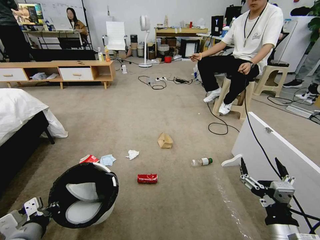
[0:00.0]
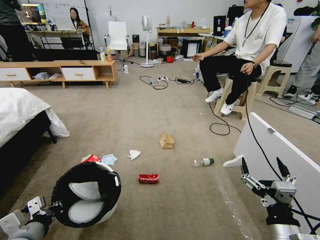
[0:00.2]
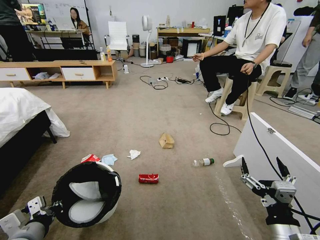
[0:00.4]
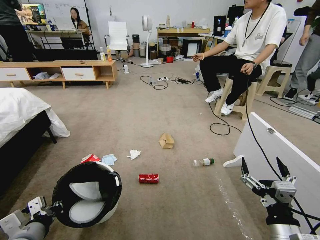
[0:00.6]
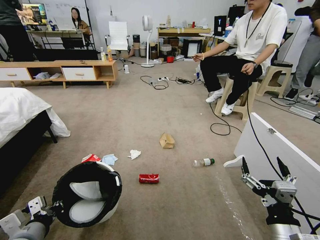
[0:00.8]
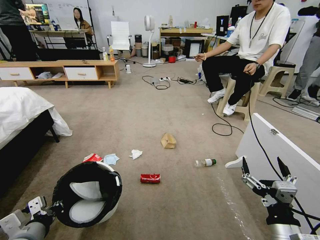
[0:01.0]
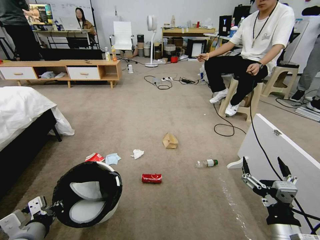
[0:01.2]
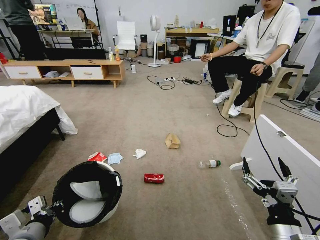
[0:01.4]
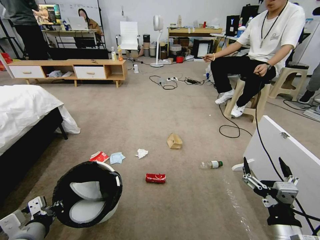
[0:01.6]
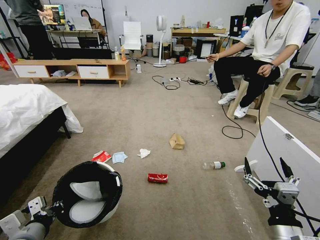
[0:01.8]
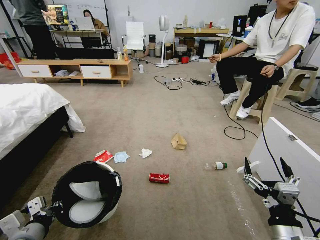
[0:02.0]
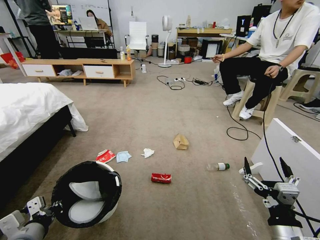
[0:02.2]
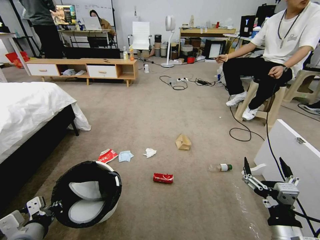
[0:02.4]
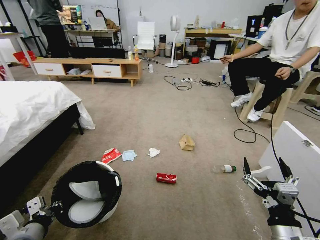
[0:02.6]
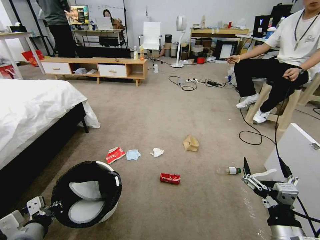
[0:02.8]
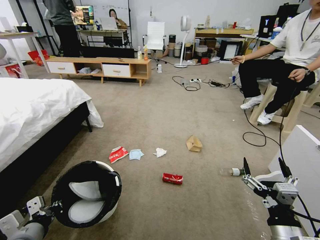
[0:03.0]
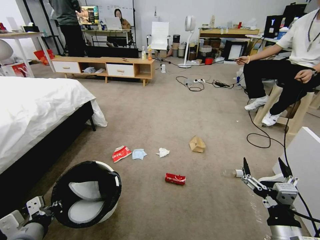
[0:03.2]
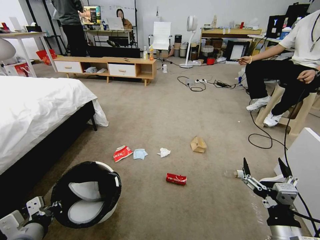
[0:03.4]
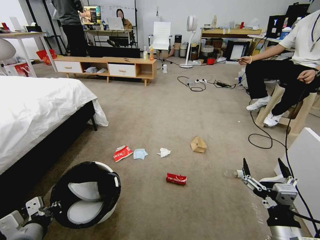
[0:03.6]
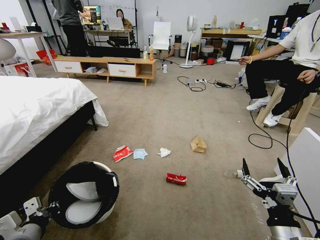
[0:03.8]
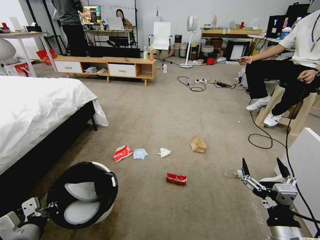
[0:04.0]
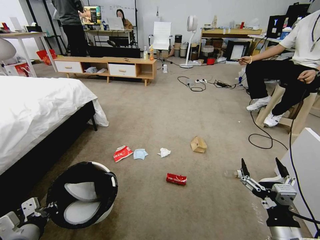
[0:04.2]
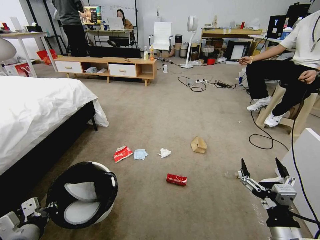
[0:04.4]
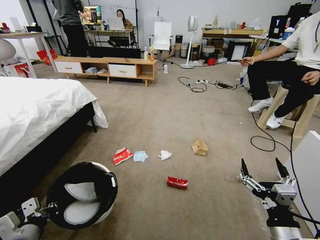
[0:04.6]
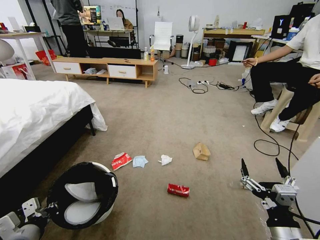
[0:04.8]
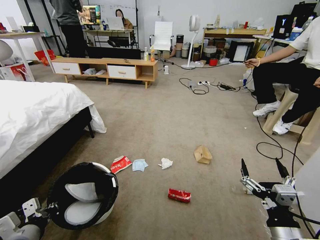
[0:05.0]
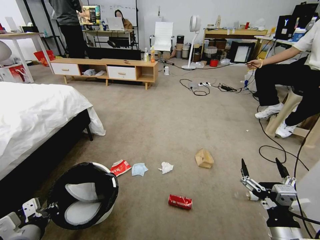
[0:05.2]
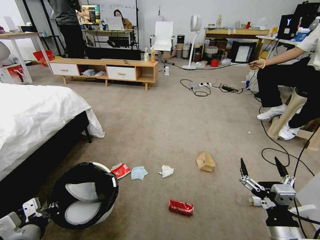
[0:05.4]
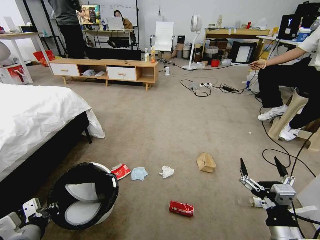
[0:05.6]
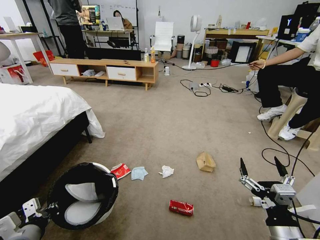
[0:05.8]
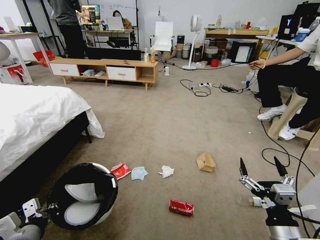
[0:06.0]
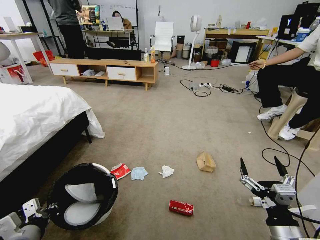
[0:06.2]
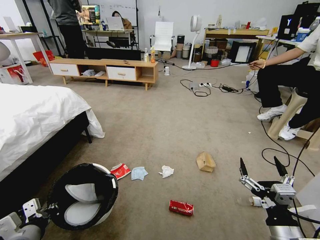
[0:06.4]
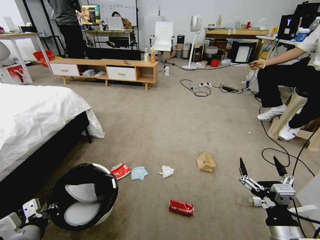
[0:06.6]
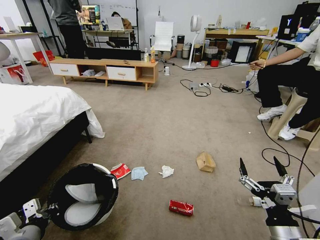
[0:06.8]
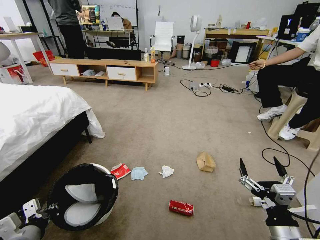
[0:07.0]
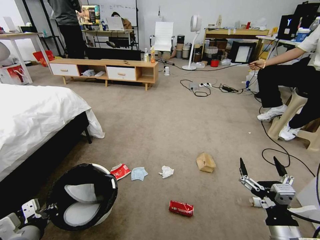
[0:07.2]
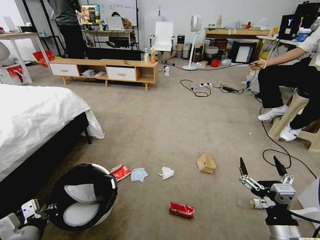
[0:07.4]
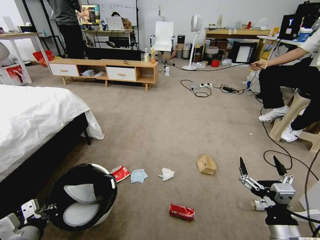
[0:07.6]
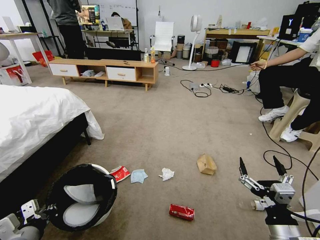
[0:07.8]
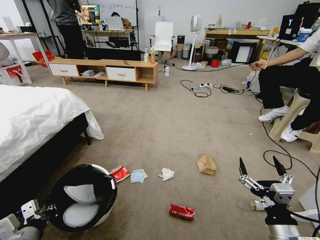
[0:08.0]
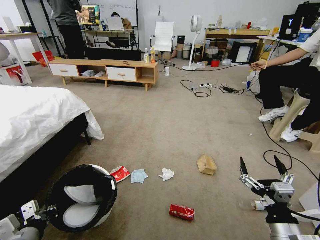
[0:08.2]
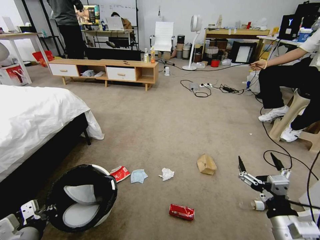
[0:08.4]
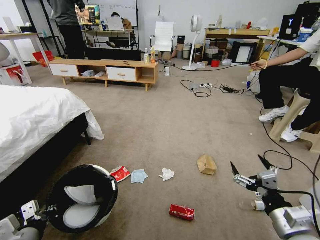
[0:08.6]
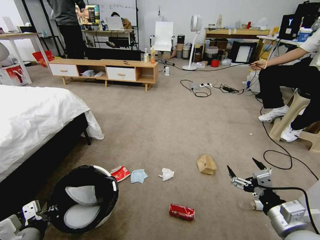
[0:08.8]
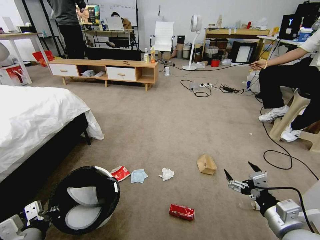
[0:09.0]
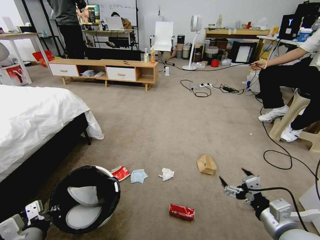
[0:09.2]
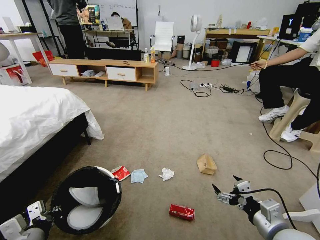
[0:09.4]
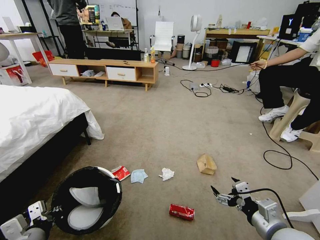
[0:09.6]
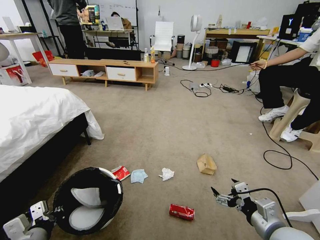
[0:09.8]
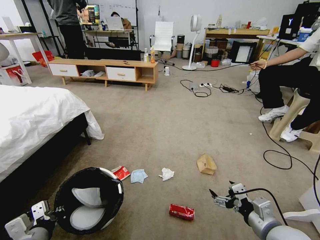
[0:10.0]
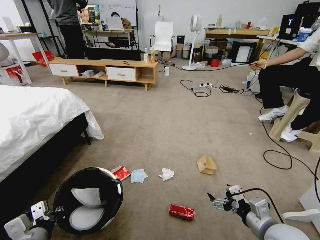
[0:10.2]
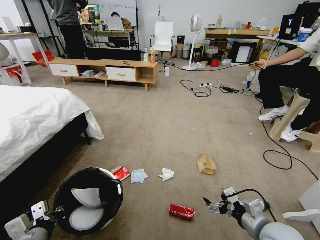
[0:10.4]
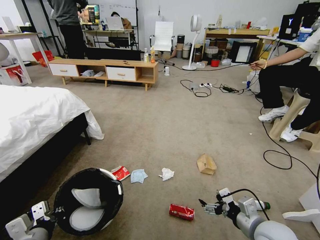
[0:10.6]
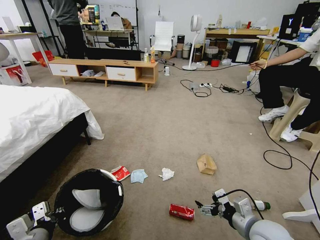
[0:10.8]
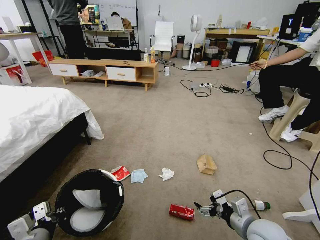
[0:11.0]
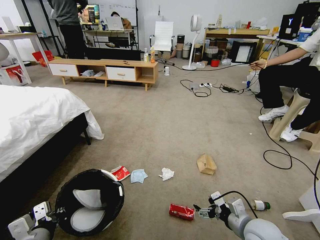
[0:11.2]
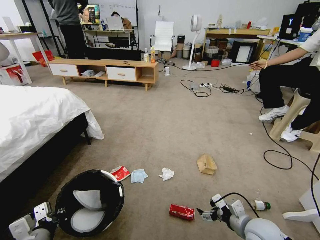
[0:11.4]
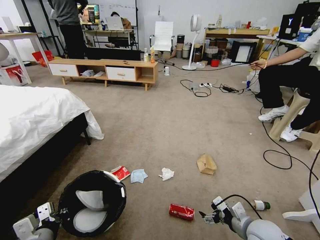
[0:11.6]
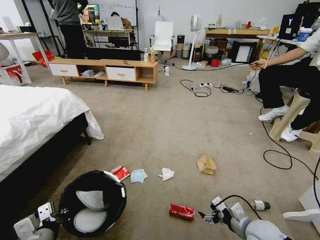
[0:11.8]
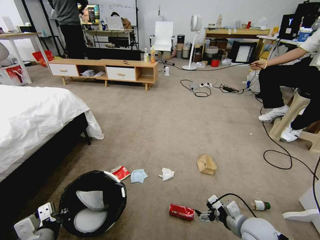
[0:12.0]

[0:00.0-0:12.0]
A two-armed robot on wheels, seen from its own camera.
Task of the whole recording: Pick up the trash bin and place the garbage on the floor into it.
0:06.0 to 0:07.6: Both grippers stay put.
0:07.6 to 0:09.0: The right gripper shifts by some 5 cm.
0:09.0 to 0:10.4: The right gripper ends up some 5 cm from where it was.
0:10.4 to 0:12.0: The right gripper travels downward by some 5 cm.

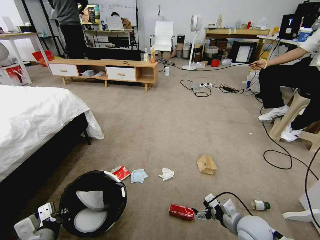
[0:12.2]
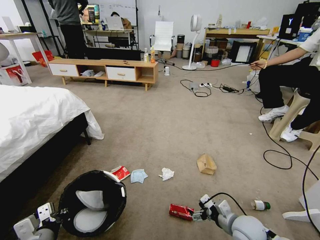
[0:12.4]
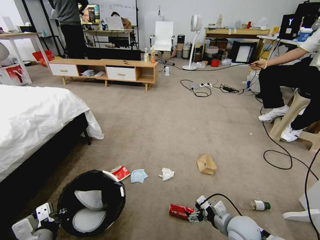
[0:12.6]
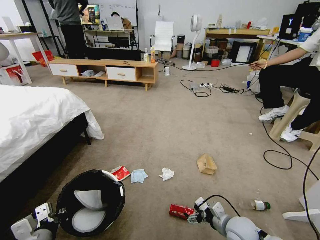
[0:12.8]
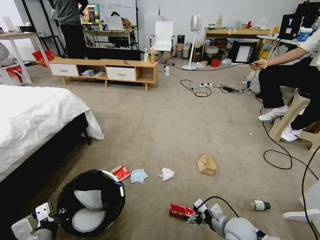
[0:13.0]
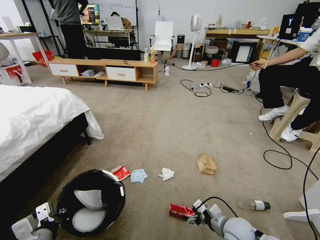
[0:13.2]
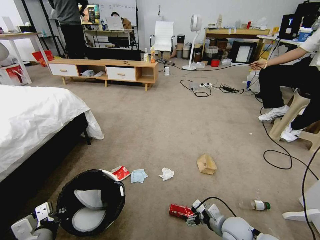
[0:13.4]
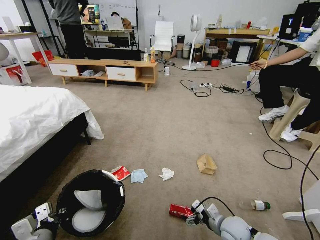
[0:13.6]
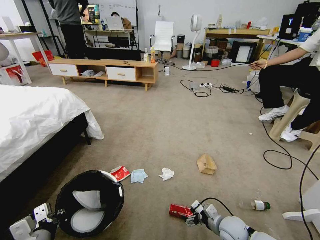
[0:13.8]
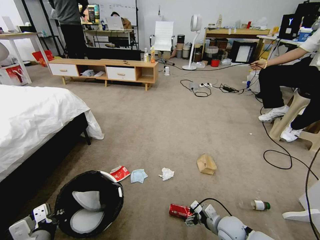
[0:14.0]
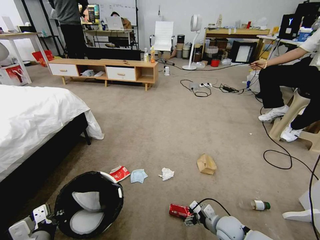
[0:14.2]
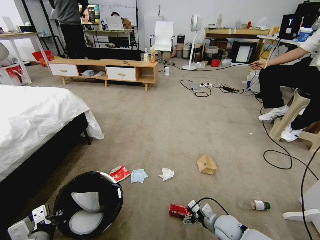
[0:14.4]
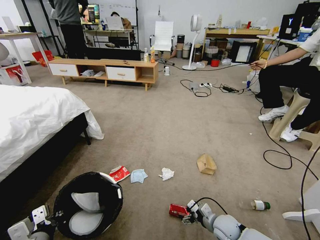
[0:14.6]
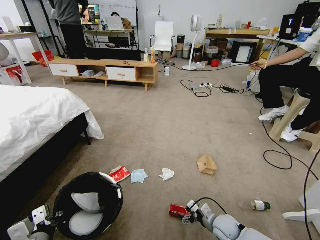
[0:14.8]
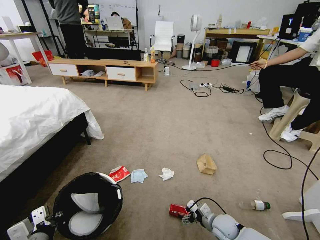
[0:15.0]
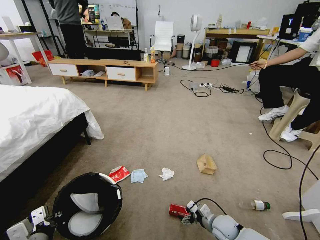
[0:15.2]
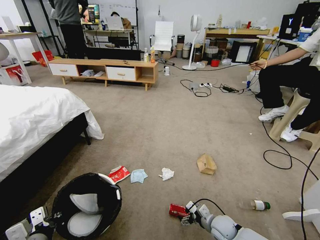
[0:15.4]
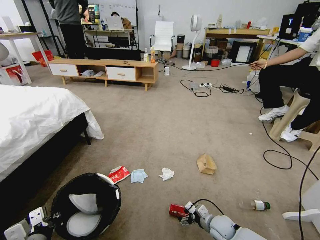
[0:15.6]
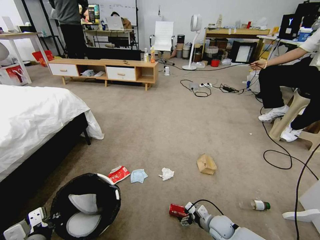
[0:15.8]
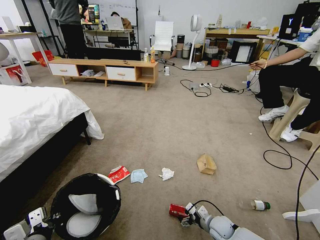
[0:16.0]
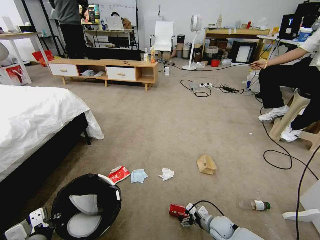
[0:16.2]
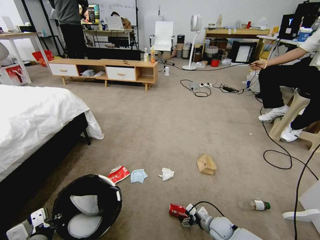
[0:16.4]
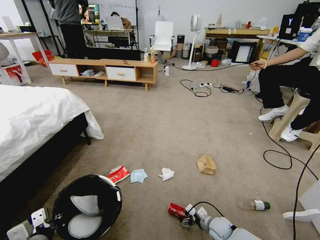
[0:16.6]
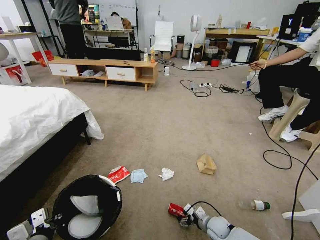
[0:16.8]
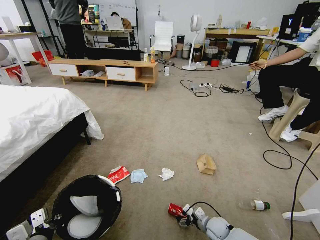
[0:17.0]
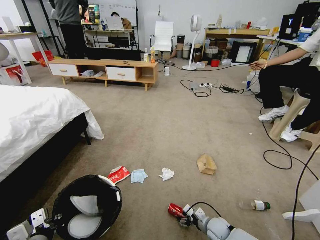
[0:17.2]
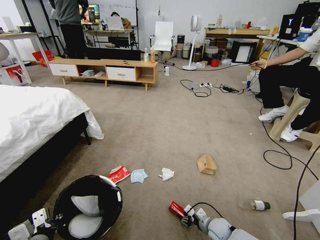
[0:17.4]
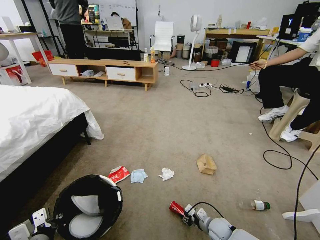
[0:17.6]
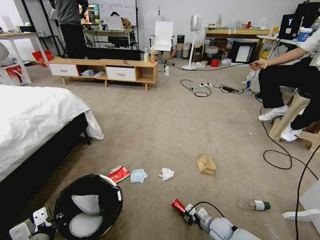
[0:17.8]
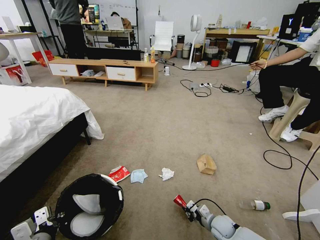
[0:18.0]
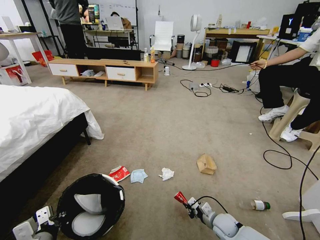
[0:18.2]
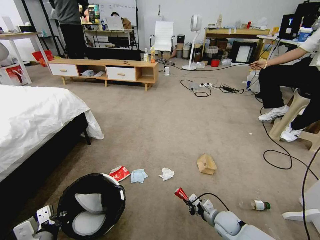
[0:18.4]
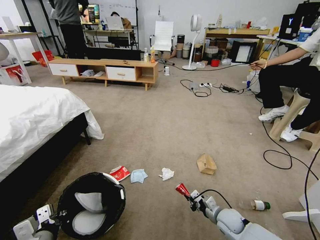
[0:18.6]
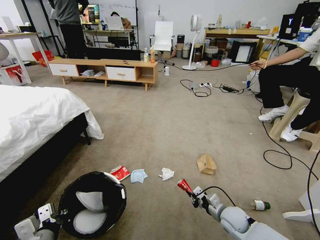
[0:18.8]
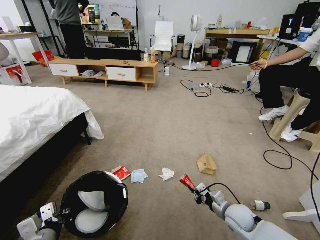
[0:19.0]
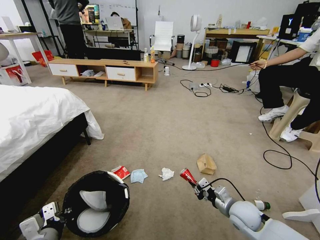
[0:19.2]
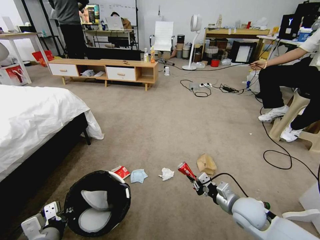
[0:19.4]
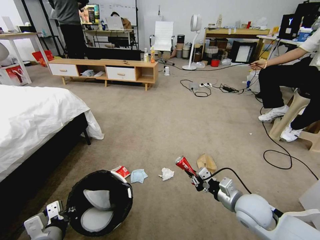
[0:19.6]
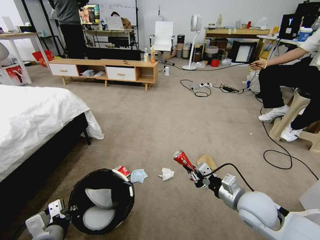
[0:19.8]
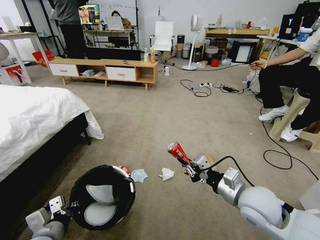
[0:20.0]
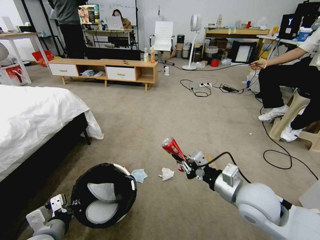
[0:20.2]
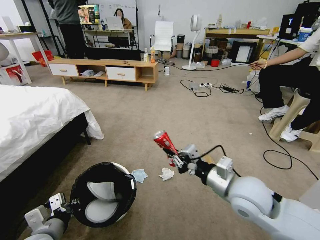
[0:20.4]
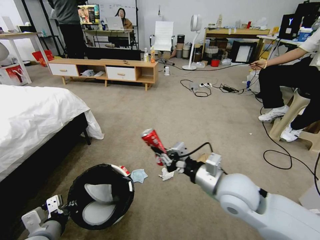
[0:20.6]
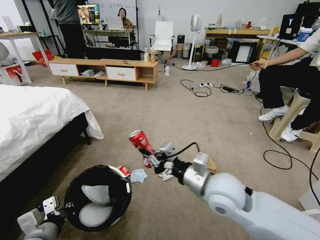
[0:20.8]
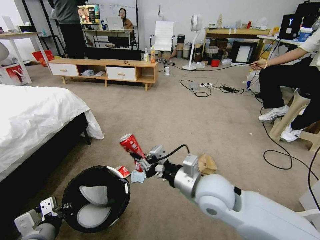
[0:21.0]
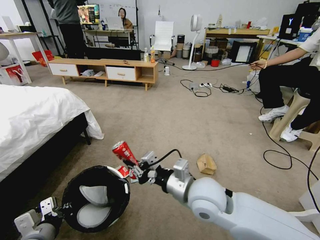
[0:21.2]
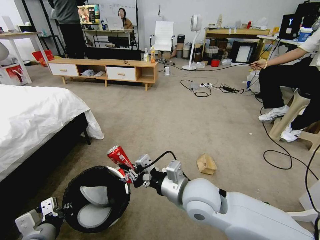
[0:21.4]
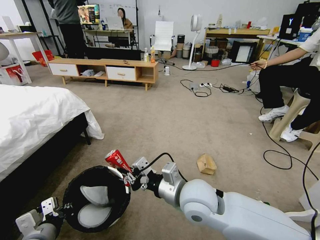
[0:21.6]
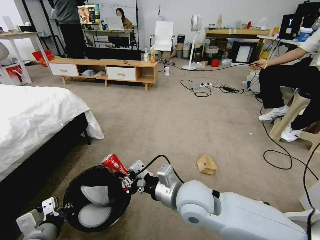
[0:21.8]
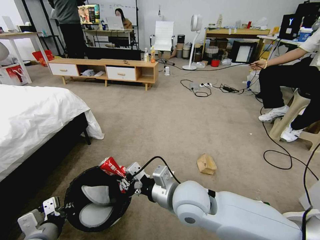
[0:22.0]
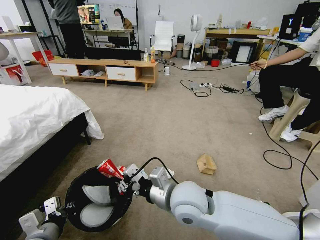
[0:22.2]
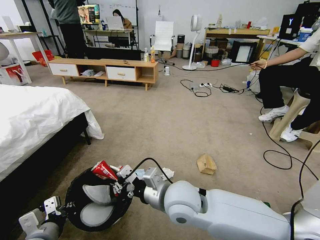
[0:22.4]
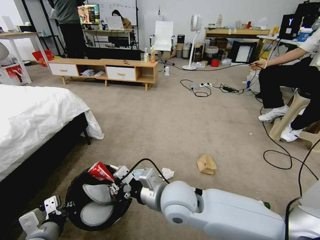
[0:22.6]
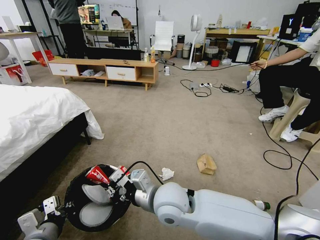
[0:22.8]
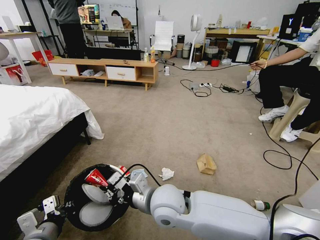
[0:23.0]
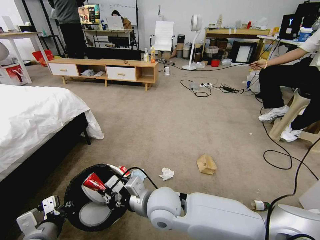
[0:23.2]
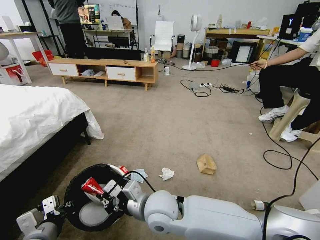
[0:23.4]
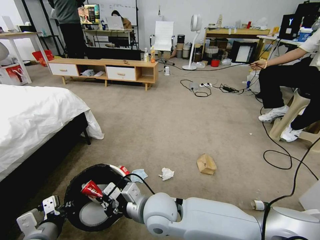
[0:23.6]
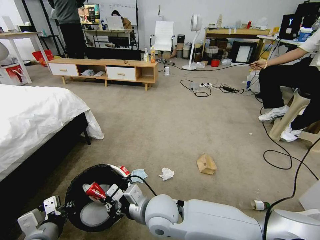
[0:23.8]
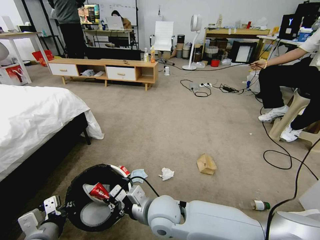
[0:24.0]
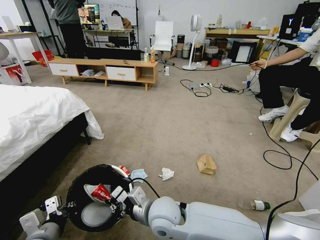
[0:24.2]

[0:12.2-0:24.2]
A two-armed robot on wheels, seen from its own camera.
Task of the whole recording: Pick up the trash bin and place the garbage on the floor into it.
0:12.2 to 0:13.8: The right gripper shifts some 10 cm downward.
0:13.8 to 0:15.2: The right gripper shifts by roughly 5 cm.
0:15.2 to 0:16.6: There are only small adjustments of the grippers.
0:16.6 to 0:18.2: The right gripper closes.
0:18.2 to 0:19.8: The right gripper shifts about 25 cm upward.
0:19.8 to 0:21.2: The right gripper shifts roughly 15 cm to the left and upward.
0:21.2 to 0:22.6: The right gripper goes some 5 cm to the left.
0:22.6 to 0:24.2: The right gripper heads downward, covering some 5 cm.
